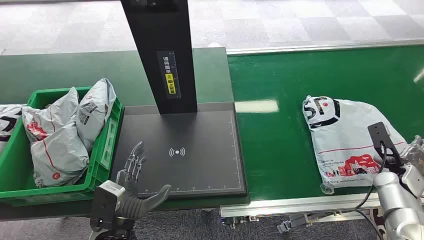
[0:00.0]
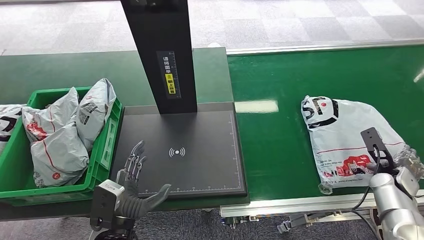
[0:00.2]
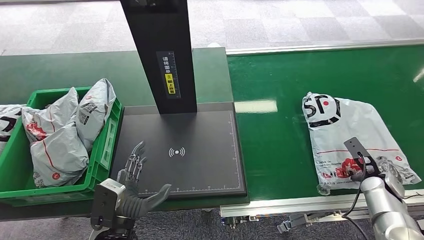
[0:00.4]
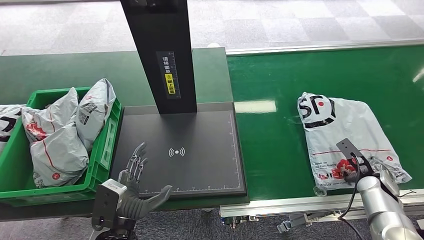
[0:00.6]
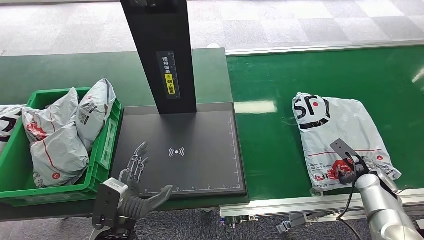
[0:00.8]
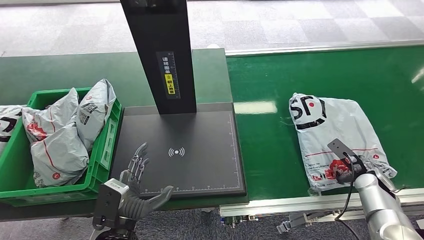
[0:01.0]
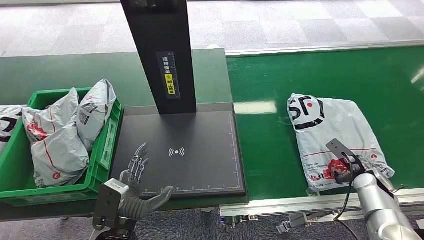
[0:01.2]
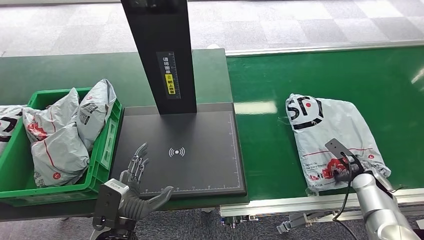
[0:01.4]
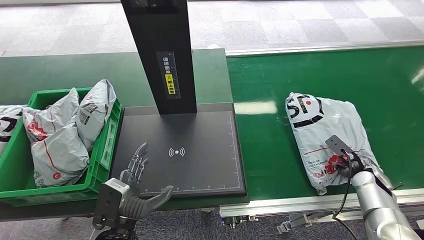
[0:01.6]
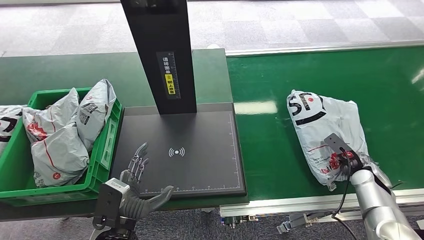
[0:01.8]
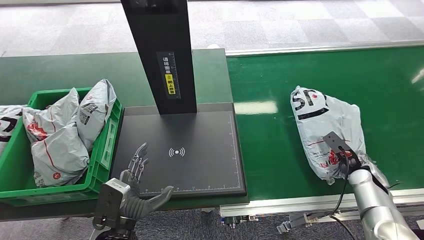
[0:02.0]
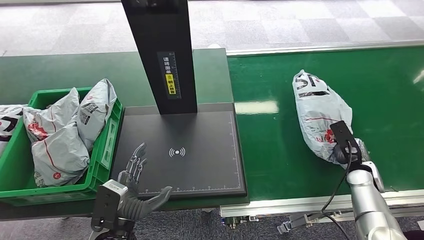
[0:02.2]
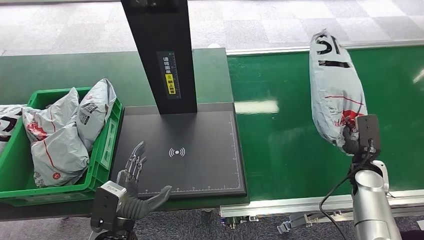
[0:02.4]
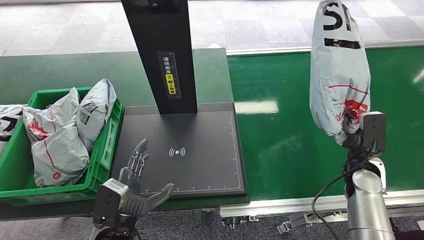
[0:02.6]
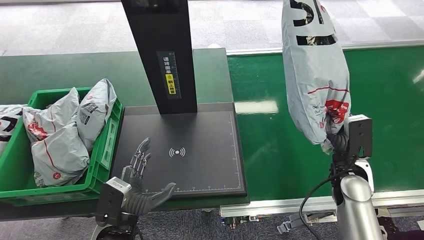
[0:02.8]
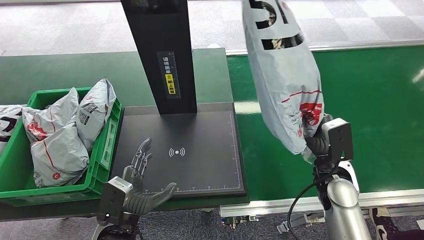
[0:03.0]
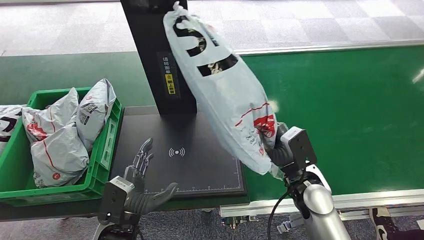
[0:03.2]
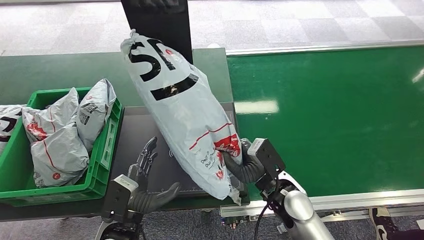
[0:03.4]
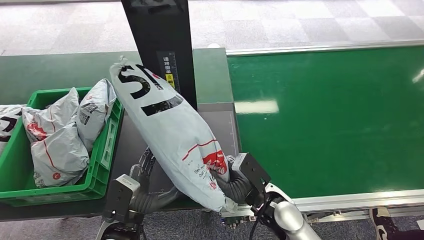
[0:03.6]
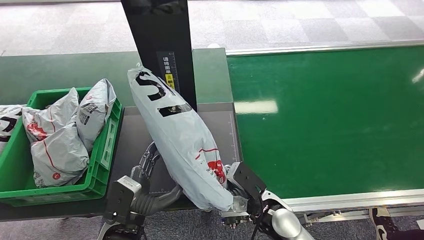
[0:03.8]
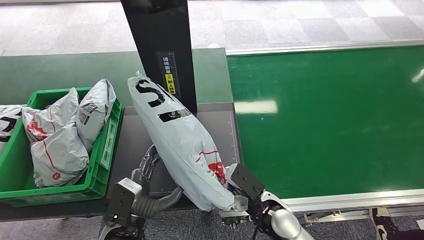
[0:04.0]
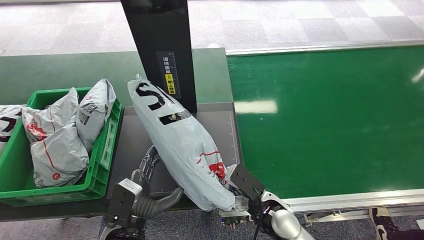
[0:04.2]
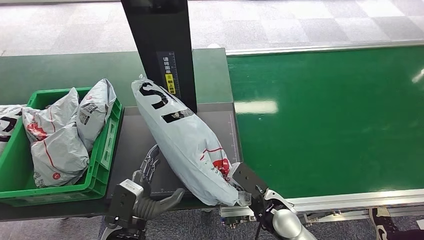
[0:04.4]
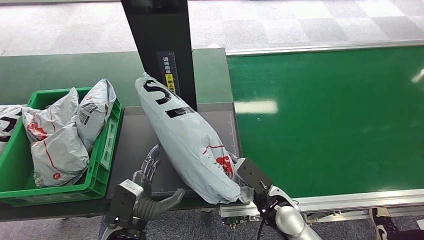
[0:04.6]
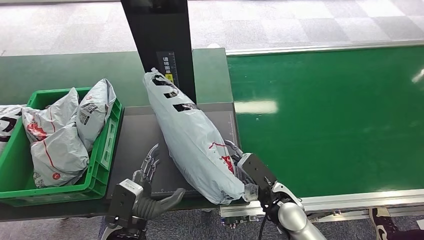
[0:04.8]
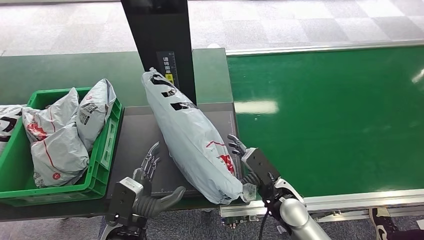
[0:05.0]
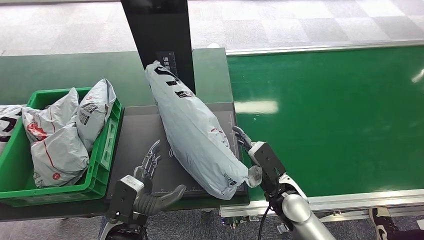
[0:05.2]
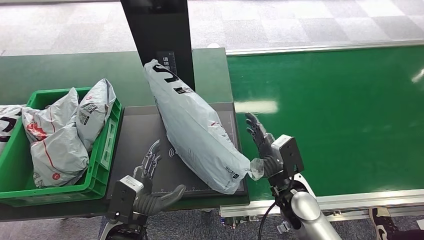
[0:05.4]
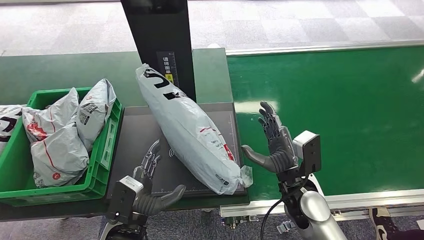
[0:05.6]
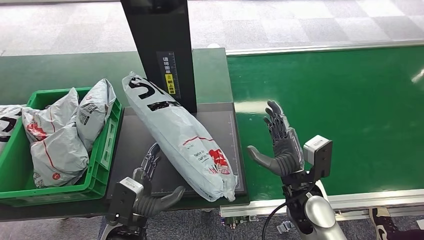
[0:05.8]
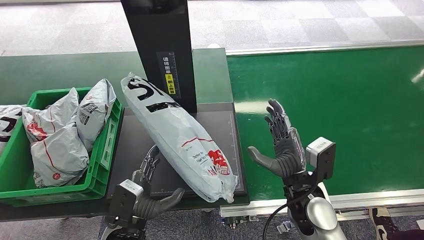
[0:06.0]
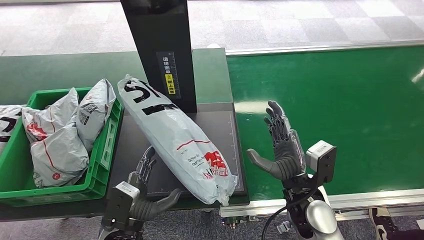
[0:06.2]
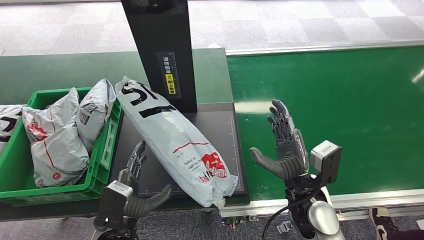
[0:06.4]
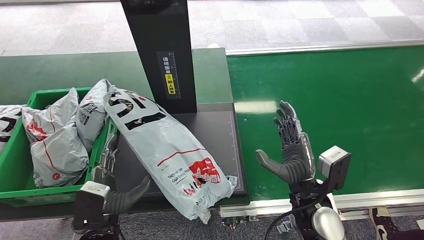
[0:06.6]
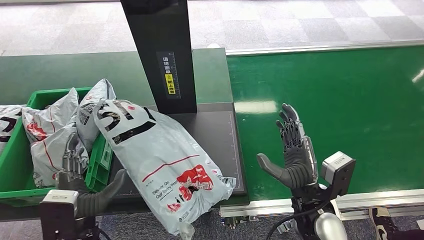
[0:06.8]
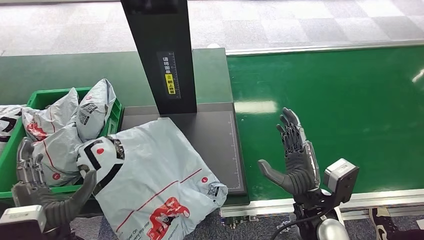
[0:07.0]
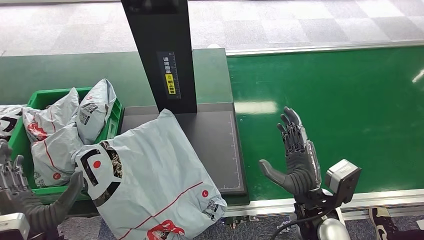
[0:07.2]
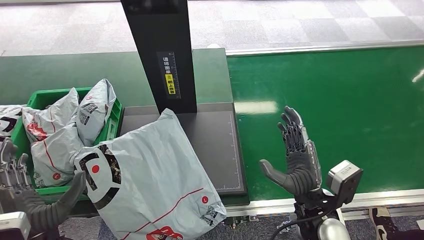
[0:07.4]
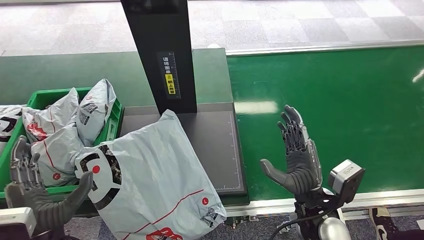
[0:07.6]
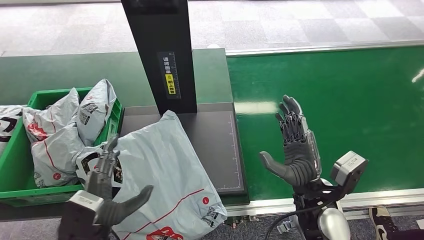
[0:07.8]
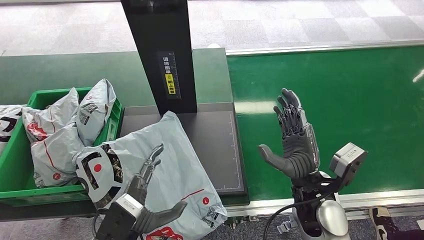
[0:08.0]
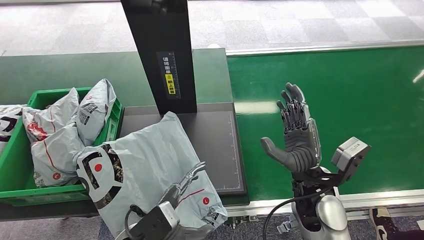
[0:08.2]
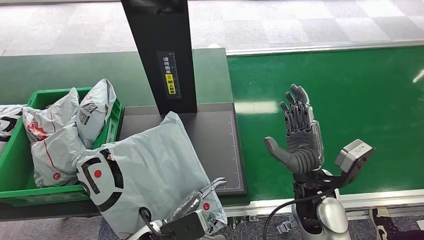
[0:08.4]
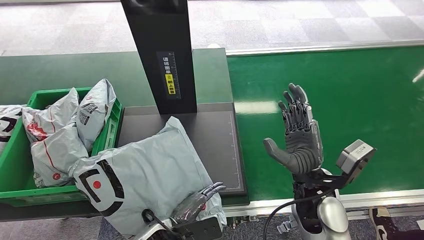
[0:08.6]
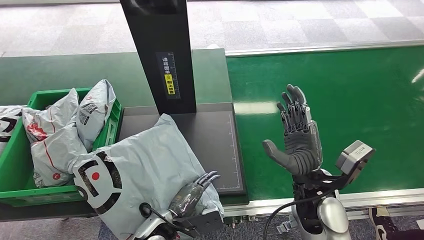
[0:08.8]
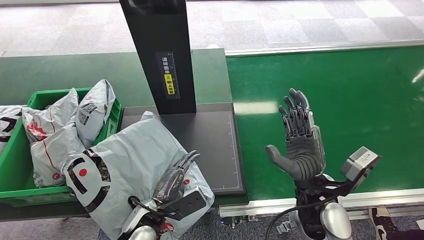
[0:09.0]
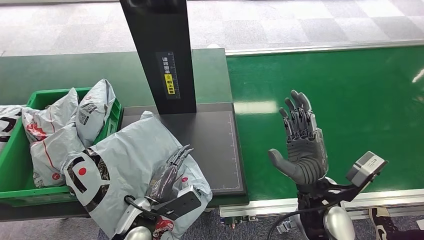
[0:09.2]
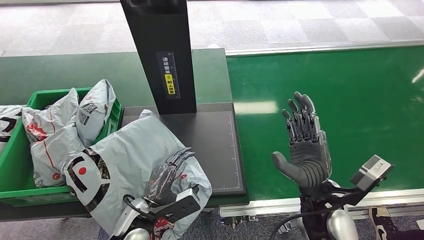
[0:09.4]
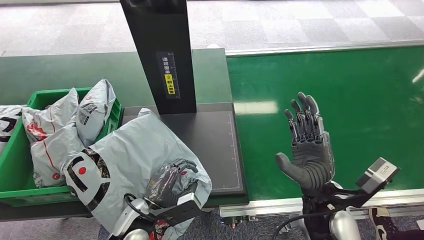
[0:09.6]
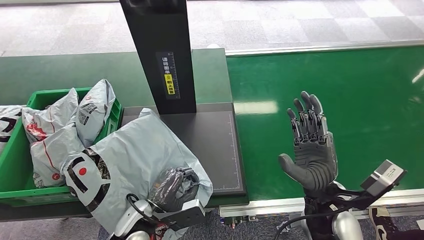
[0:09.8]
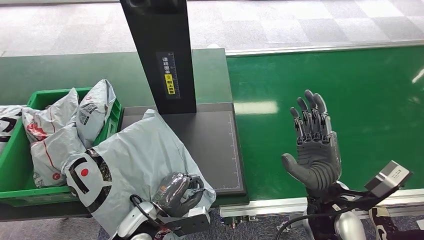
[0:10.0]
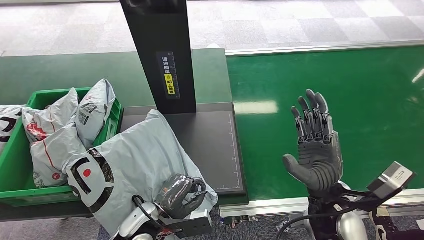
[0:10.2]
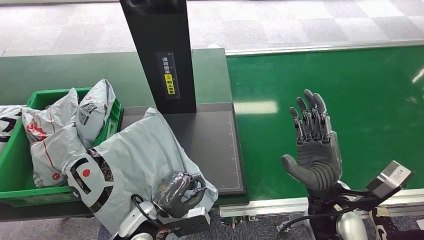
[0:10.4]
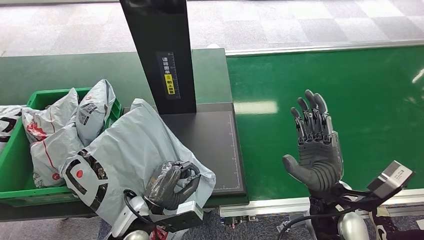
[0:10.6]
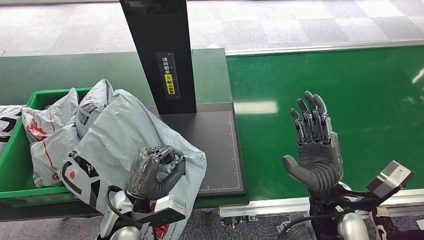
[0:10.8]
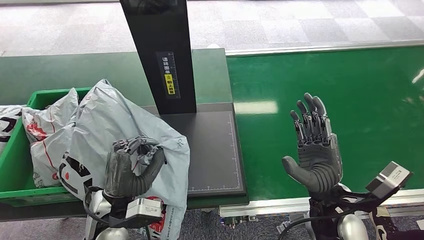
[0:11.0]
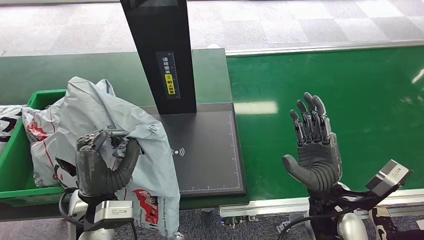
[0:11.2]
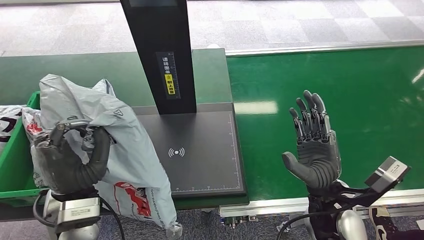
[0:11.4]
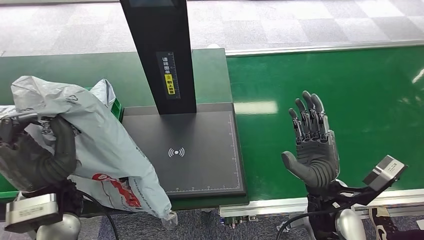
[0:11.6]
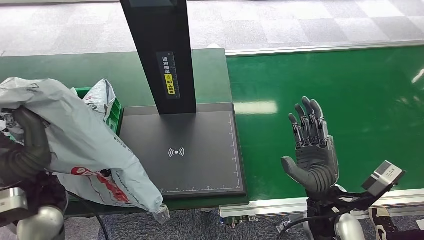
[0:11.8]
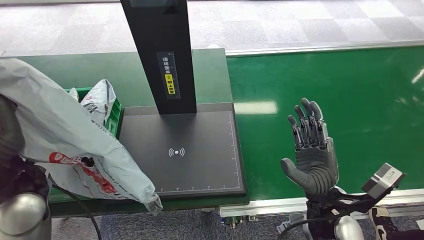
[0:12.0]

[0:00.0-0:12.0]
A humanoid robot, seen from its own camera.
Step, 0:00.0 to 0:03.2: Pick up the package from the conveyor belt.
Step, 0:03.4 to 0:07.2: Place the package onto the inbound machine.
Step, 0:07.4 to 0:11.8: Pick up the package from the inbound machine.
0:01.6 to 0:03.0: The right hand moves to the left and upward, roughly 20 cm.
0:04.4 to 0:06.0: The right hand travels upward by roughly 5 cm.
0:07.6 to 0:09.0: The left hand is displaced downward, to the right and forward by approximately 20 cm.
0:09.0 to 0:10.4: The hands make only small movements.

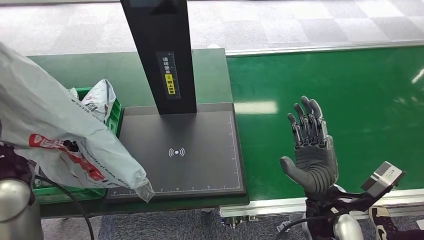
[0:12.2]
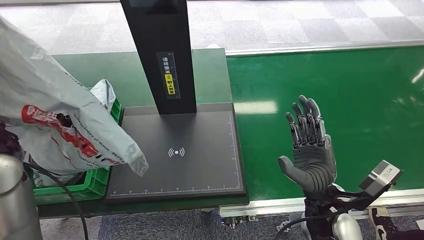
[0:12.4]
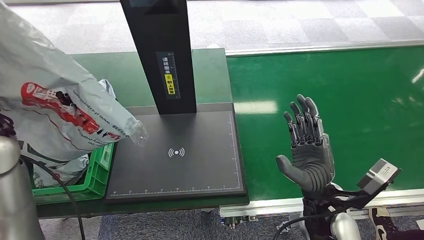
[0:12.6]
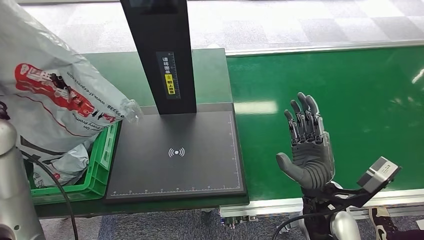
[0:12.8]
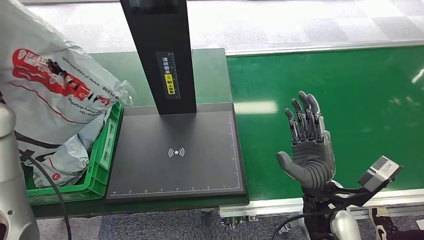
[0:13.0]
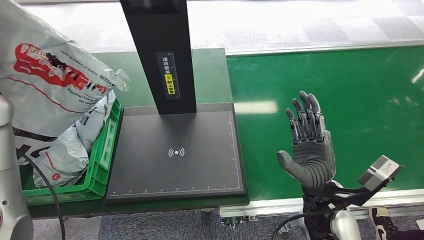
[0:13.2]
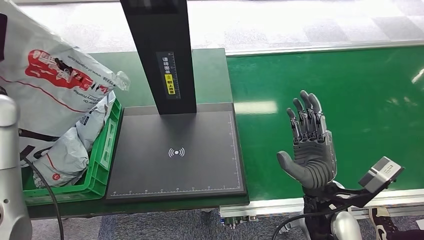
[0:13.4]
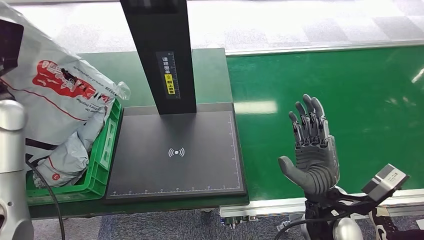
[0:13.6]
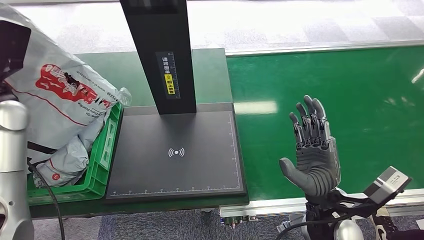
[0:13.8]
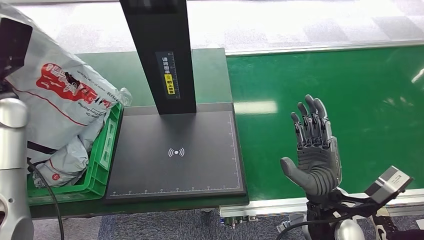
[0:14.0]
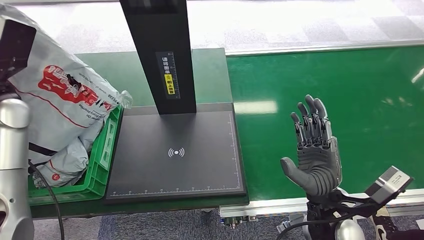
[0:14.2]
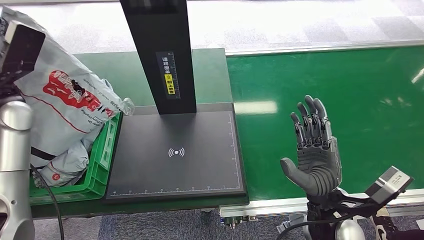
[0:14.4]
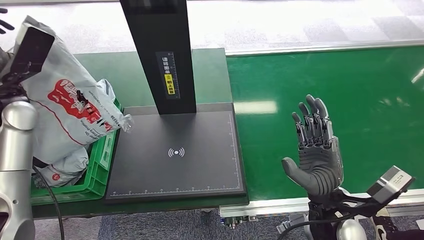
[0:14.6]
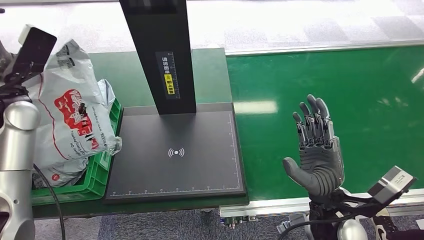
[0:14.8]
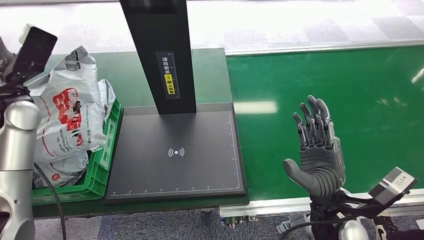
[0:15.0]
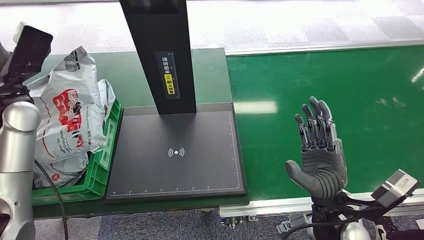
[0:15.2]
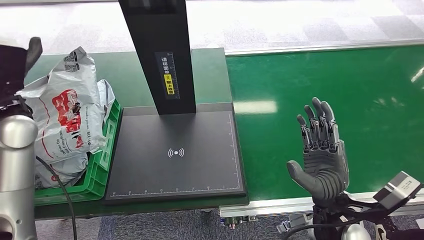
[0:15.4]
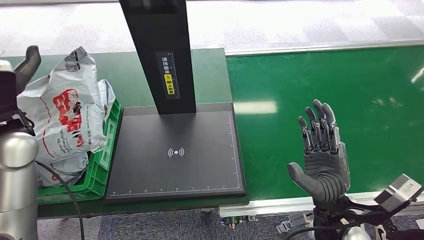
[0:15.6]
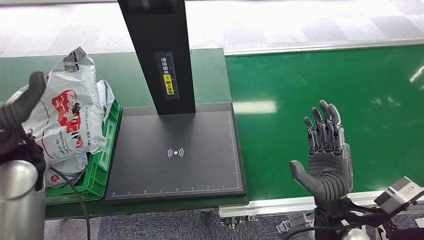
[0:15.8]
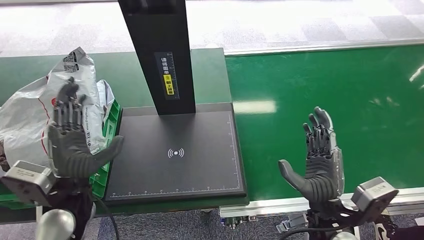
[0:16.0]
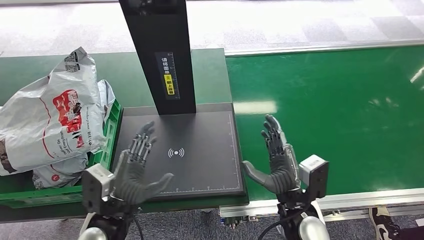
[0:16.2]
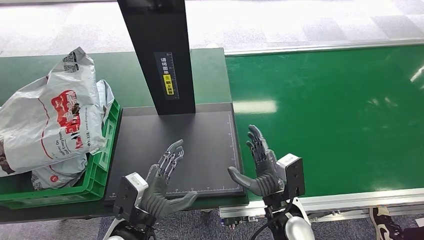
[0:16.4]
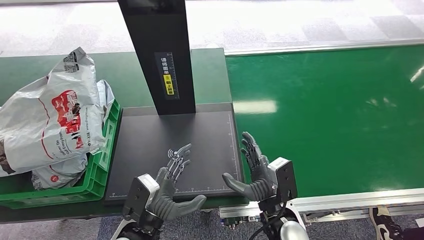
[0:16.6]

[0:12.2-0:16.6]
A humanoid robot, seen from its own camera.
Step, 0:12.2 to 0:16.6: Place the package into the parcel locker.
0:12.2 to 0:13.6: The left hand is displaced forward and to the left by roughly 15 cm.
0:13.6 to 0:15.2: The hands move only a little.
